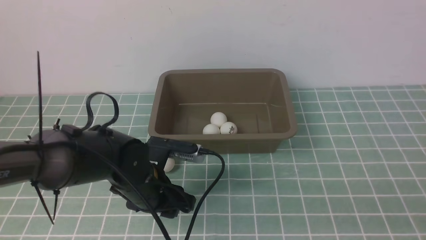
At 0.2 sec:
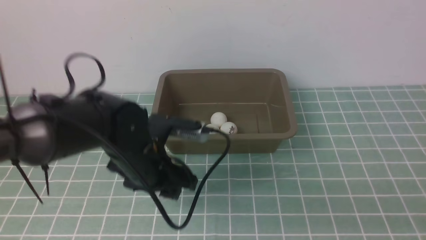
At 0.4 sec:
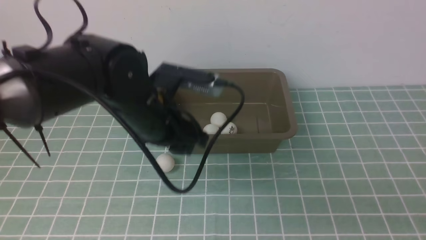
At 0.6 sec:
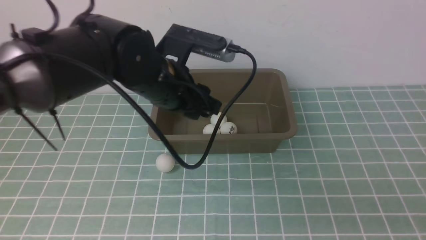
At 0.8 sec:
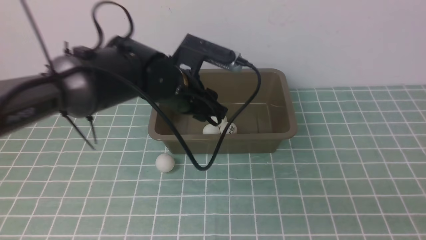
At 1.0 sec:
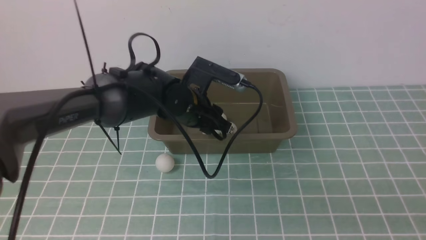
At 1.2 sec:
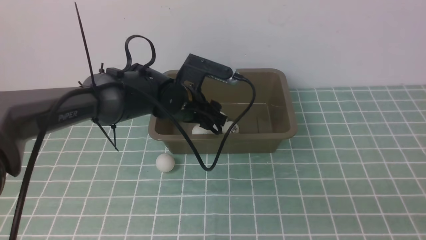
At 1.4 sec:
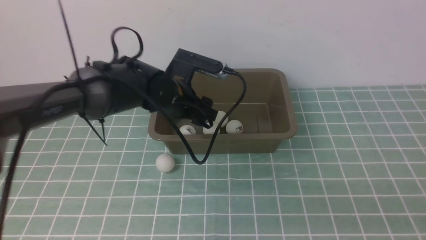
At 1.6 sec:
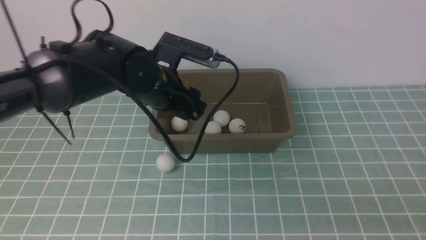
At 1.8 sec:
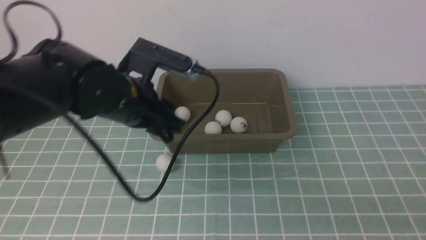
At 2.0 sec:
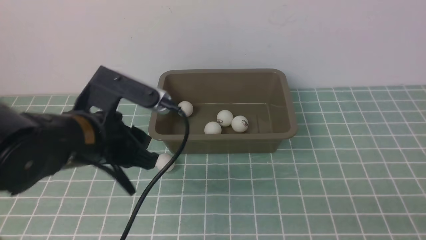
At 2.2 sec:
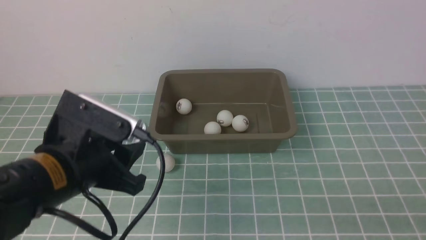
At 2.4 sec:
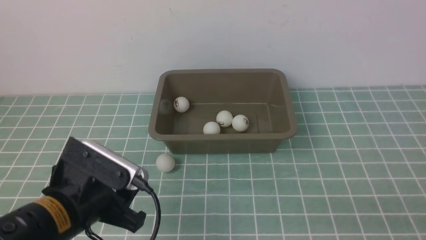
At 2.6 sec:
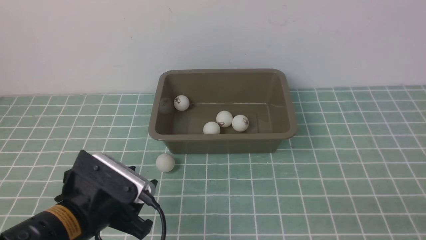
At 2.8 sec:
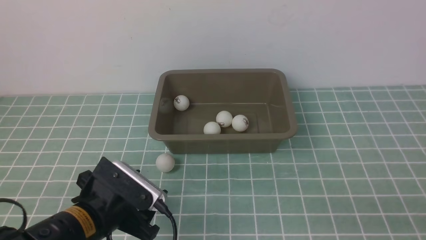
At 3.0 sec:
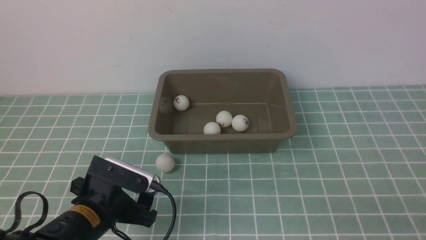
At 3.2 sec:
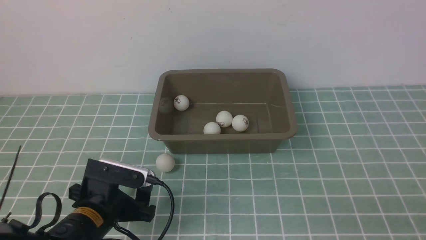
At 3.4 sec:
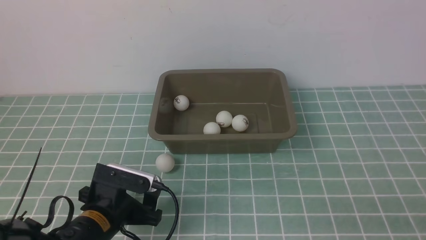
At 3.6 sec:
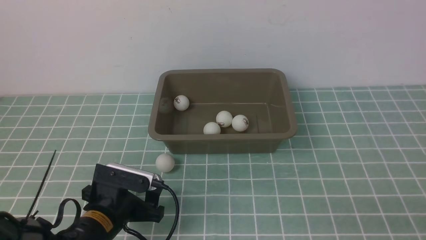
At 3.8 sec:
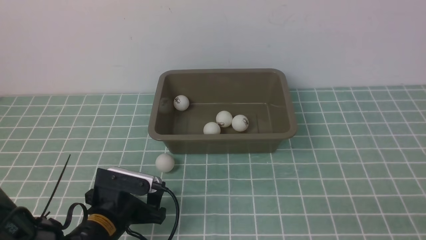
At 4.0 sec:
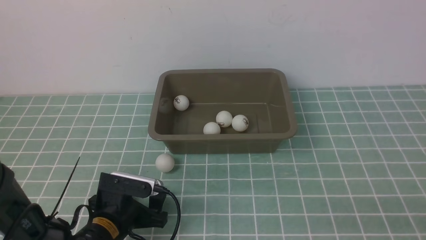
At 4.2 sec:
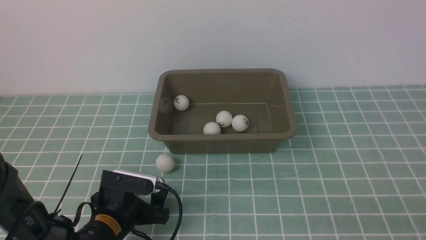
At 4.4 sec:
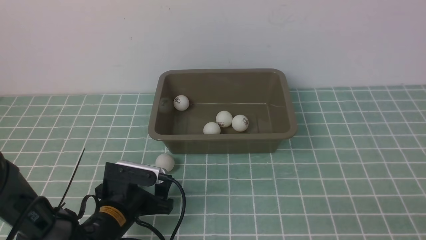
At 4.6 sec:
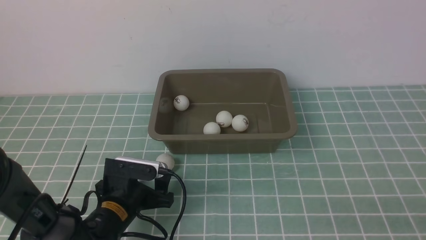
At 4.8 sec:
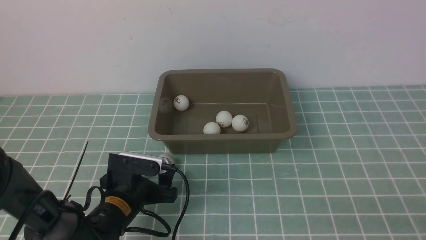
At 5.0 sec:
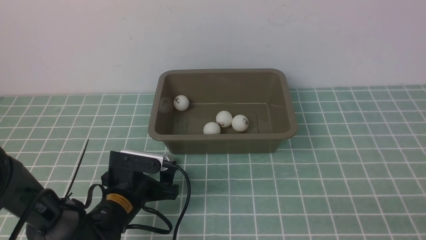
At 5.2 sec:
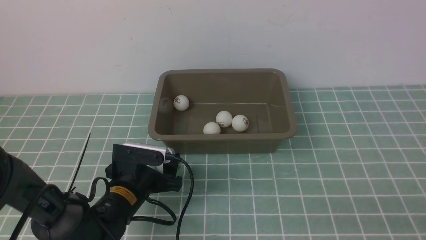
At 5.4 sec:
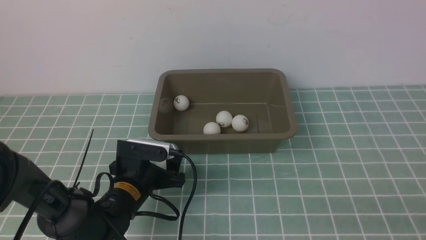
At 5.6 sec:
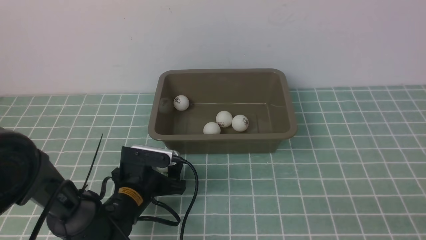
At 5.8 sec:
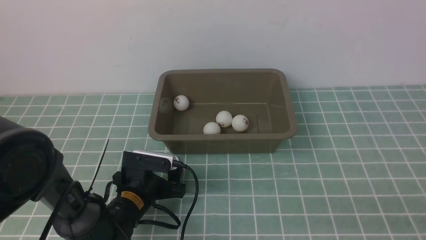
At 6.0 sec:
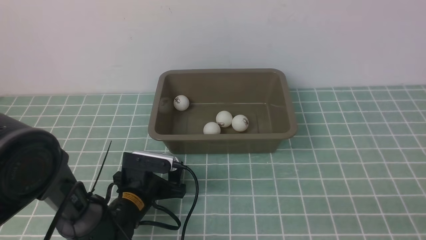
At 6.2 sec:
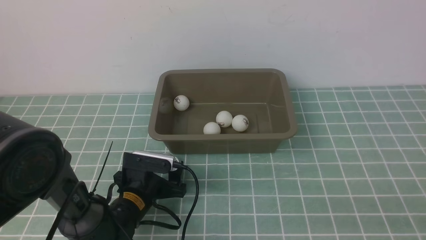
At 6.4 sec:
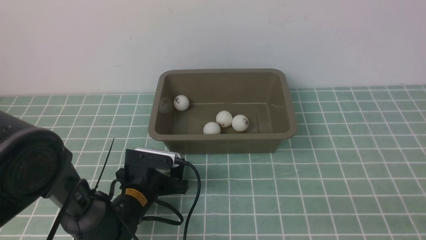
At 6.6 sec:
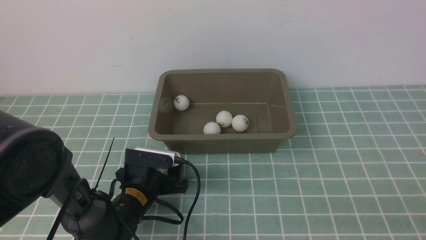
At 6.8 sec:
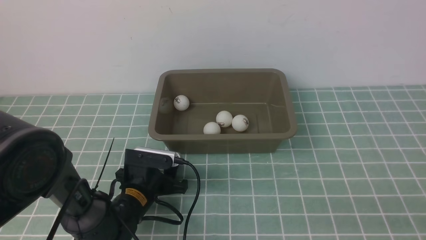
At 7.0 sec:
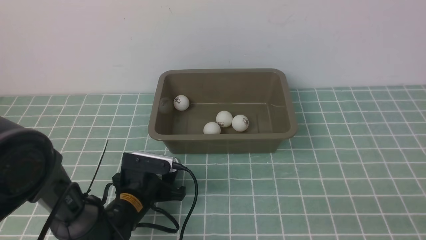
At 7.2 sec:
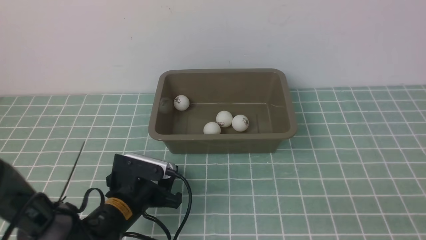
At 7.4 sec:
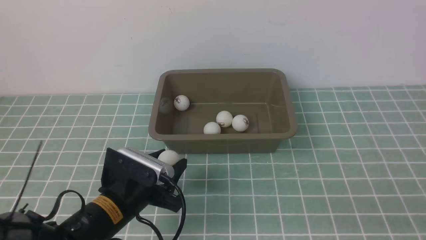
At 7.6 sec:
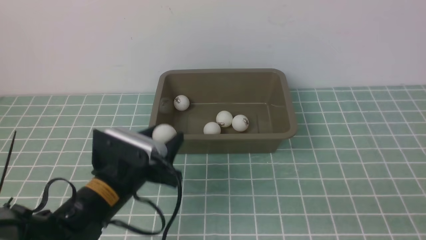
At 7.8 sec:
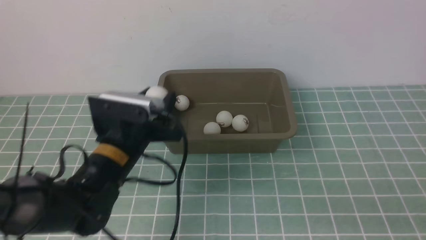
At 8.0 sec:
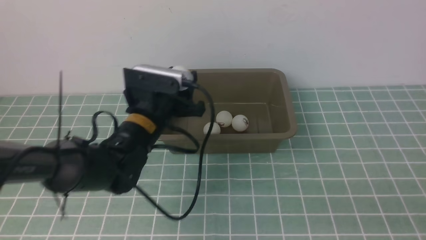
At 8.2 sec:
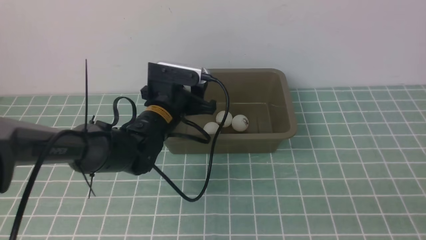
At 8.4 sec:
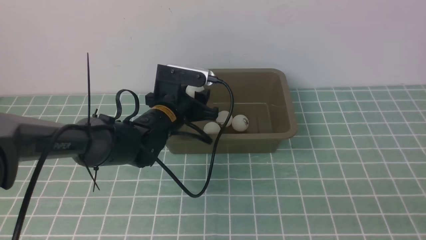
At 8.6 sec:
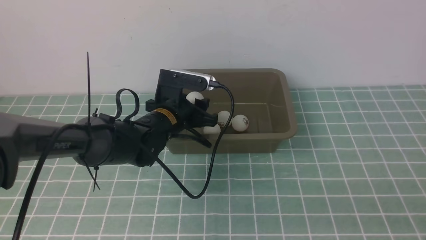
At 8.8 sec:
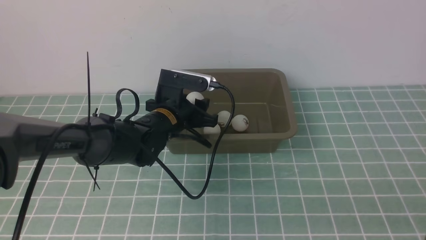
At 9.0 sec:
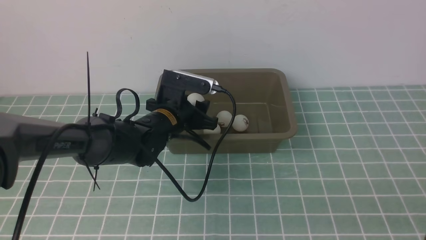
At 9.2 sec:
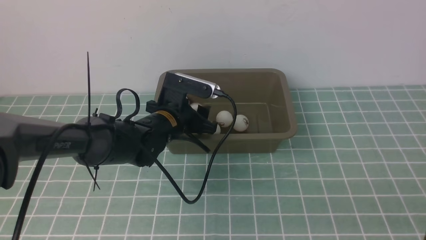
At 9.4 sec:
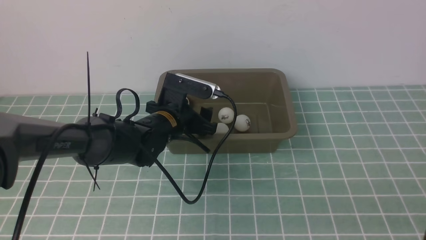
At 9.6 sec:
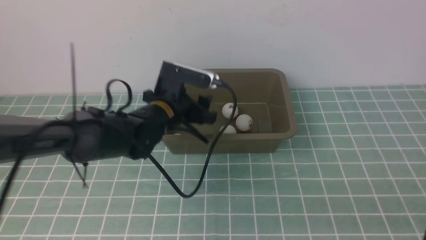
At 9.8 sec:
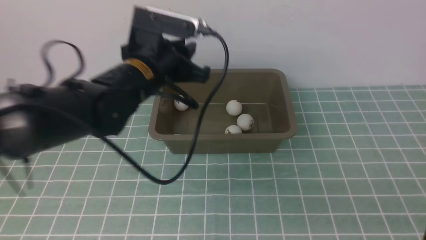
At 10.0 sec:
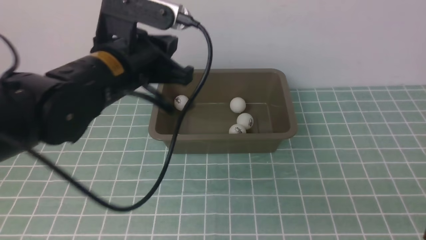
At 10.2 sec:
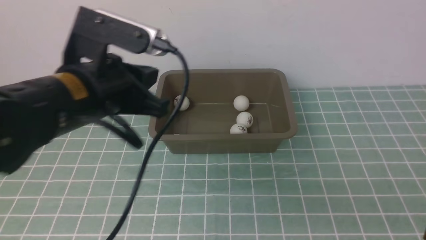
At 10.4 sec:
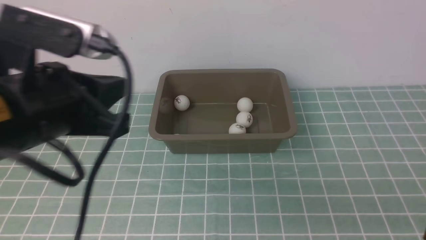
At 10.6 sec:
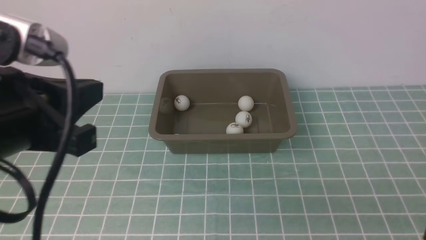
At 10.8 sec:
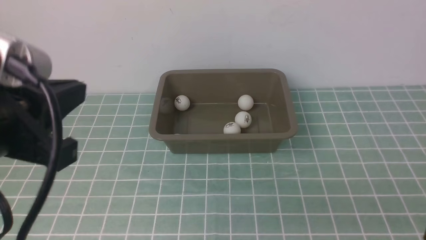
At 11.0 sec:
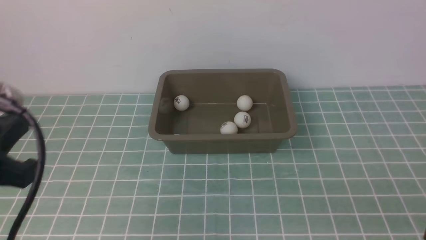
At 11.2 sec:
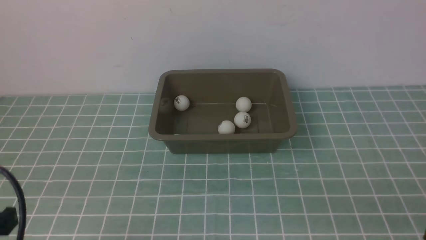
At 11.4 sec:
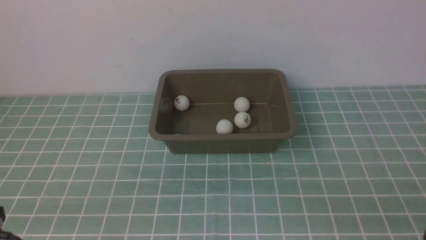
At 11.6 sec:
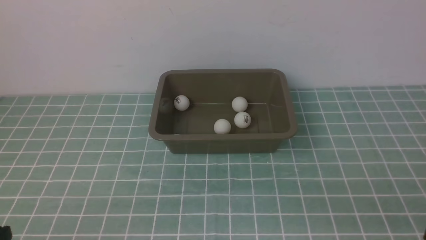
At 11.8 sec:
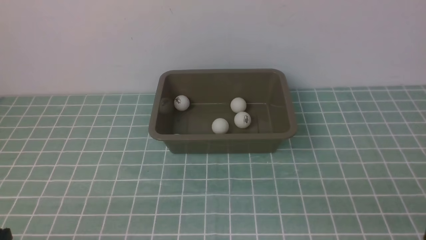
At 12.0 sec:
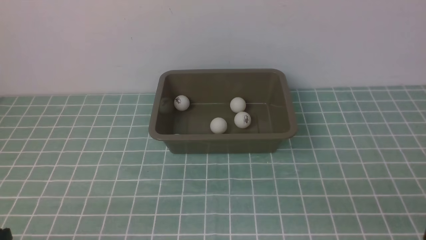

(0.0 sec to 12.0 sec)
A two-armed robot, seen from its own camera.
Step, 0.4 sec - 1.4 sec: use the left arm to put the table tennis ball into the box.
Step, 1.6 sec - 7.2 sec: use the left arm to clamp the table tennis ball closest to it.
Step, 7.4 sec - 9.4 sec: use the left arm to put the table tennis ball into the box.
0.0 sec - 1.6 sec: The left gripper moves forward, roughly 5 cm.
1.6 sec - 3.0 sec: The left gripper moves backward, downward and to the left, some 20 cm.
3.0 sec - 4.4 sec: The left gripper changes place by about 5 cm.
4.4 sec - 6.0 sec: The grippers stay close to where they were, moving slightly.
6.0 sec - 7.6 sec: The left gripper shifts approximately 15 cm upward.
7.6 sec - 9.0 sec: The left gripper moves forward and to the right, about 10 cm.
9.0 sec - 10.4 sec: The left gripper travels backward, upward and to the left by about 30 cm, and closes its fingers.
10.4 sec - 12.0 sec: The left gripper shifts roughly 25 cm downward, backward and to the left.

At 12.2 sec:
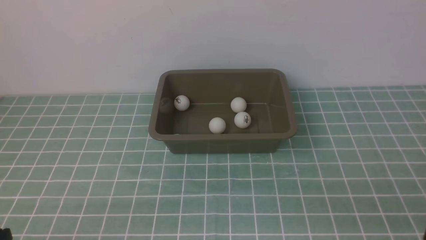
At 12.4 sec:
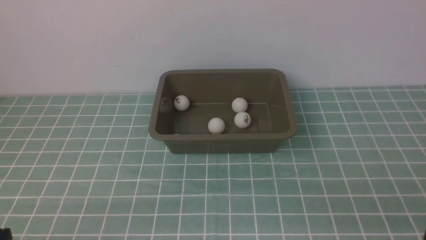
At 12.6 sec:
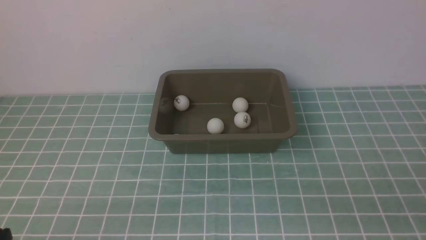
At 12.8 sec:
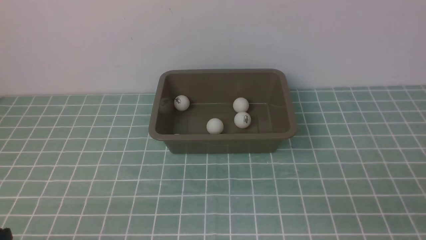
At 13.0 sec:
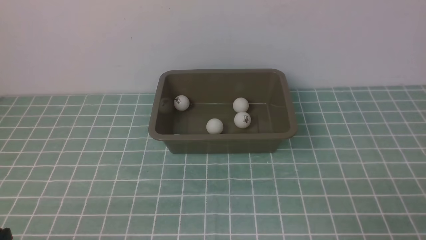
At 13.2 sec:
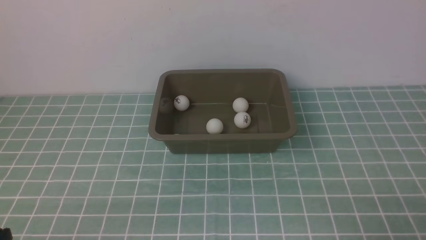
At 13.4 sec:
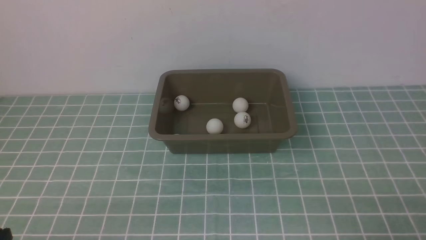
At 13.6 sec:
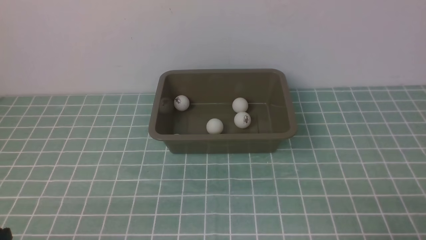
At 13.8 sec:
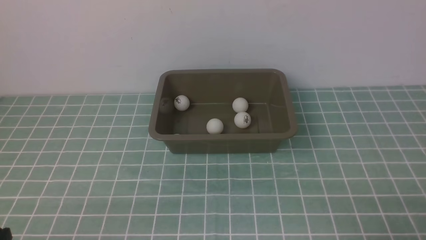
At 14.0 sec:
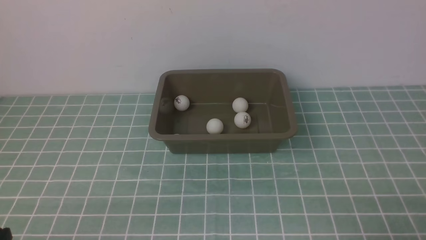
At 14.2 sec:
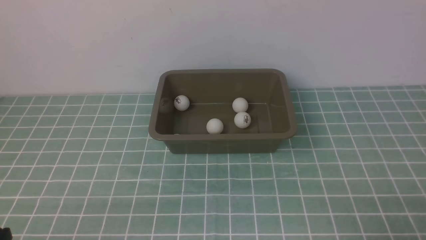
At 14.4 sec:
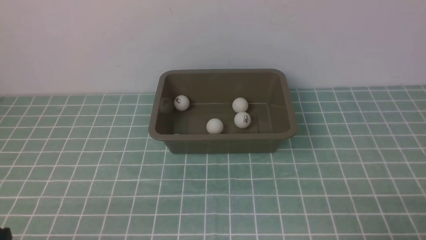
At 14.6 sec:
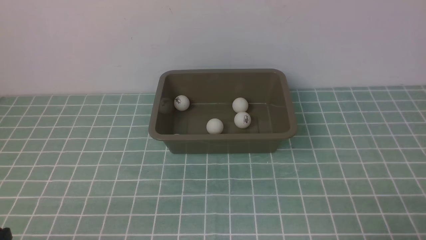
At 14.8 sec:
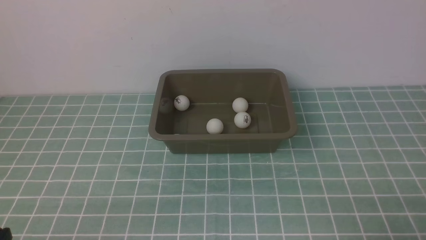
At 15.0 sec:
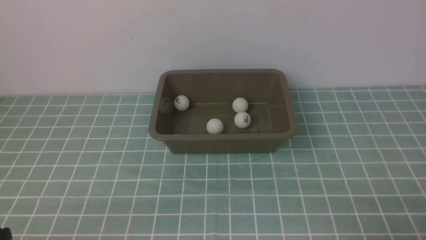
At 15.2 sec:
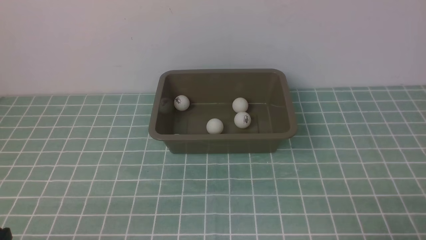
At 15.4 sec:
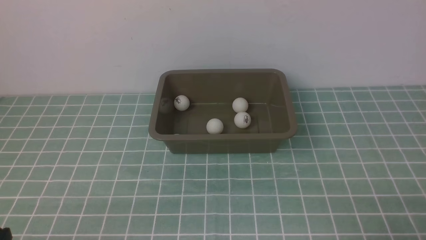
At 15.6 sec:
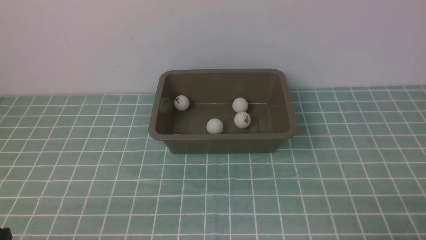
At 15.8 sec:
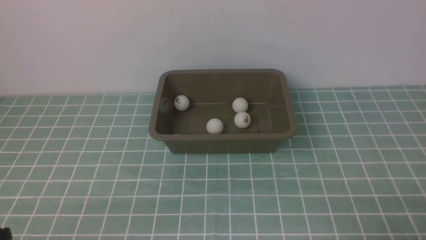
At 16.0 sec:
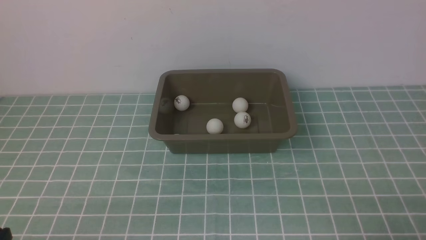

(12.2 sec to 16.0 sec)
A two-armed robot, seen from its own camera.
13.4 sec - 16.0 sec: Neither gripper changes place.
